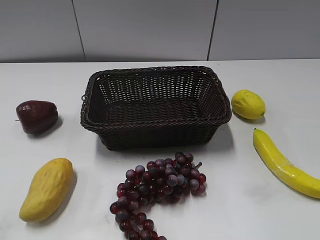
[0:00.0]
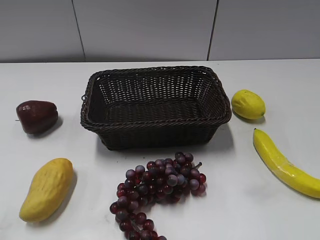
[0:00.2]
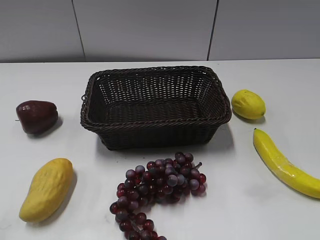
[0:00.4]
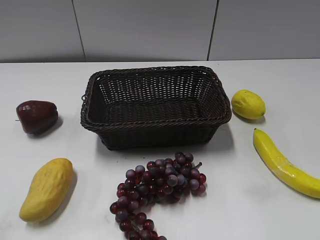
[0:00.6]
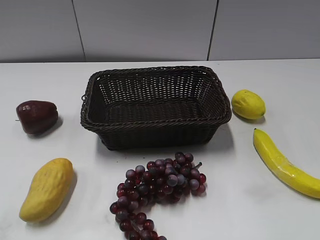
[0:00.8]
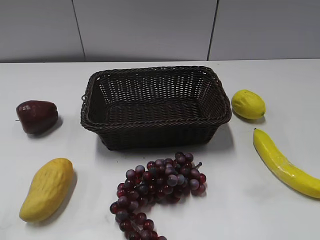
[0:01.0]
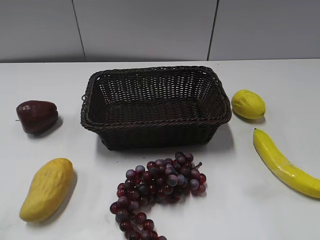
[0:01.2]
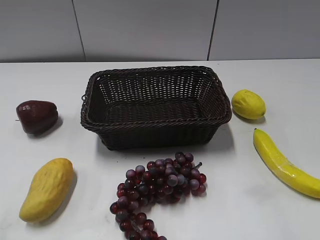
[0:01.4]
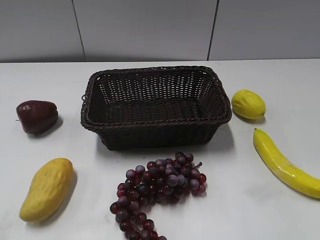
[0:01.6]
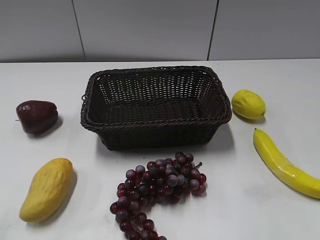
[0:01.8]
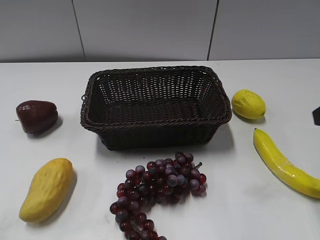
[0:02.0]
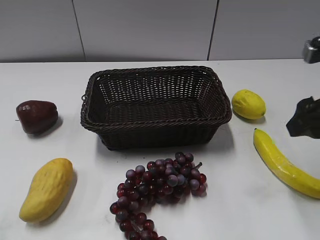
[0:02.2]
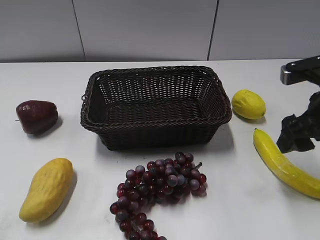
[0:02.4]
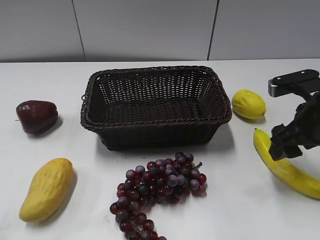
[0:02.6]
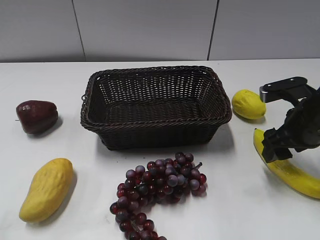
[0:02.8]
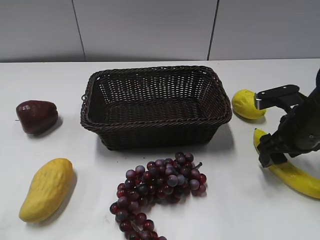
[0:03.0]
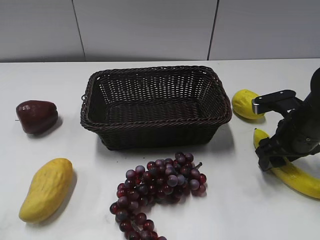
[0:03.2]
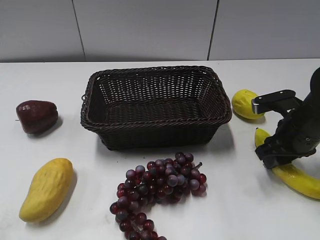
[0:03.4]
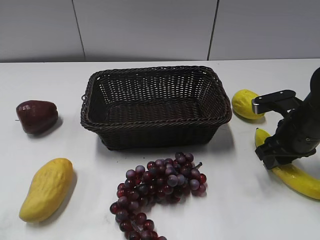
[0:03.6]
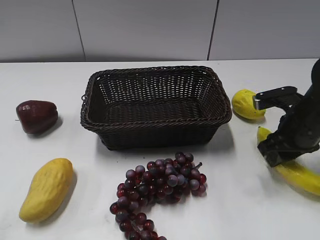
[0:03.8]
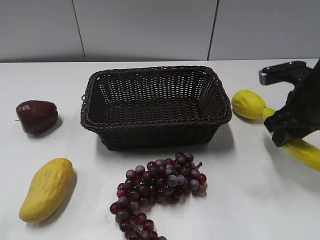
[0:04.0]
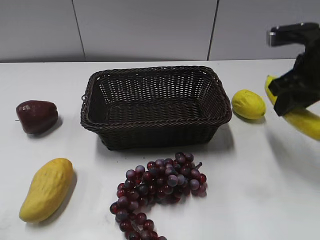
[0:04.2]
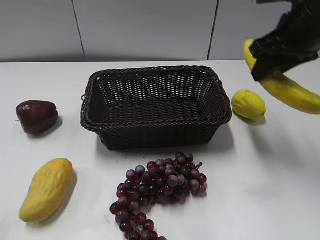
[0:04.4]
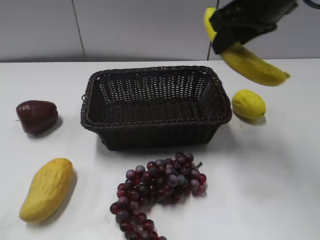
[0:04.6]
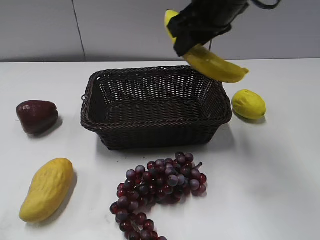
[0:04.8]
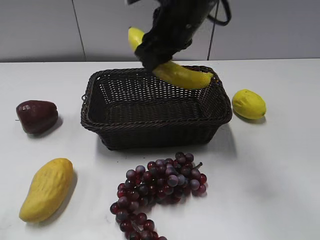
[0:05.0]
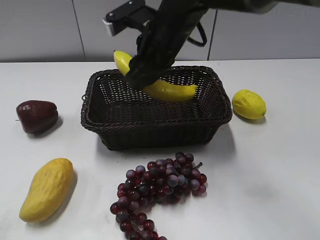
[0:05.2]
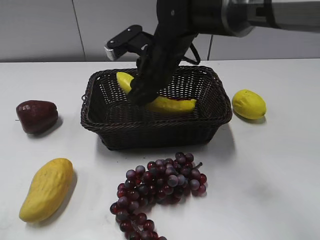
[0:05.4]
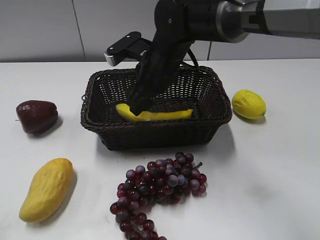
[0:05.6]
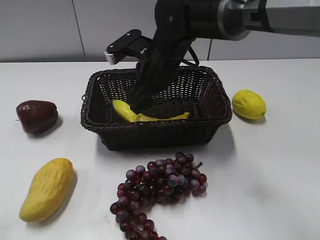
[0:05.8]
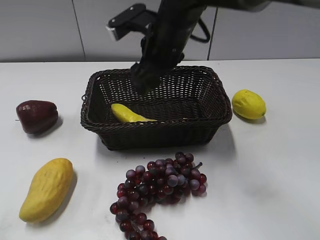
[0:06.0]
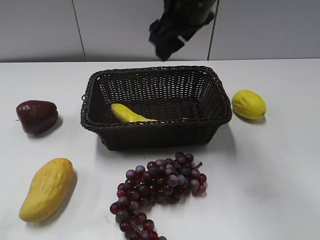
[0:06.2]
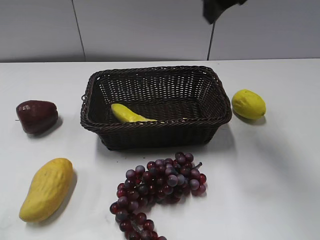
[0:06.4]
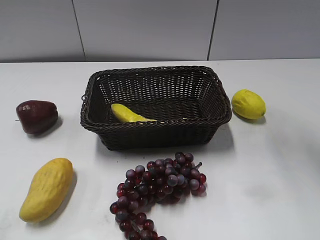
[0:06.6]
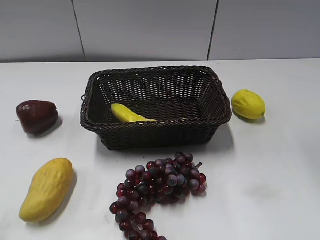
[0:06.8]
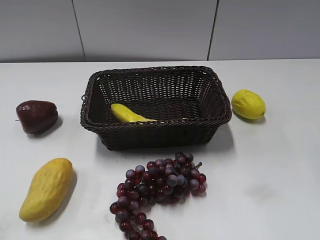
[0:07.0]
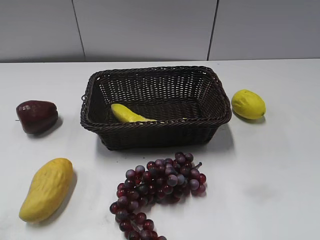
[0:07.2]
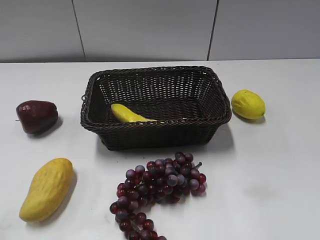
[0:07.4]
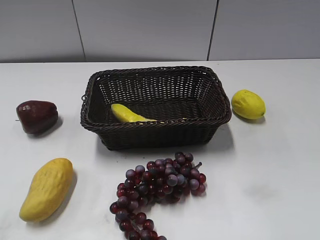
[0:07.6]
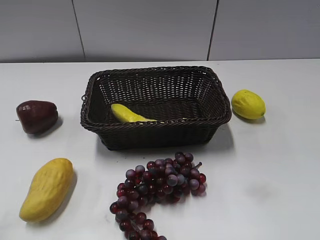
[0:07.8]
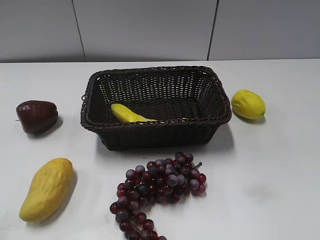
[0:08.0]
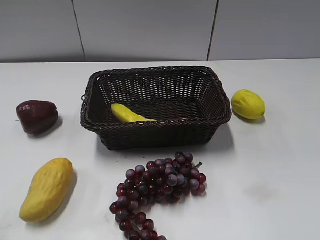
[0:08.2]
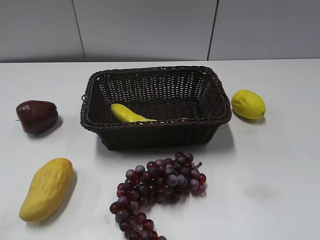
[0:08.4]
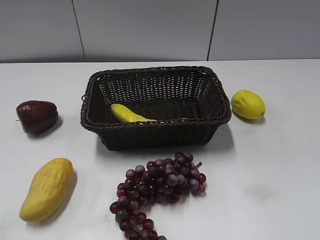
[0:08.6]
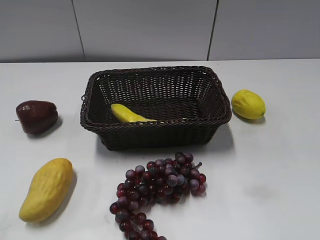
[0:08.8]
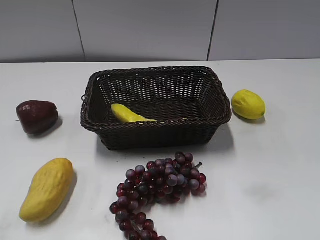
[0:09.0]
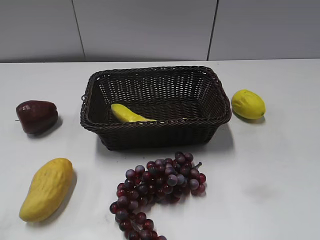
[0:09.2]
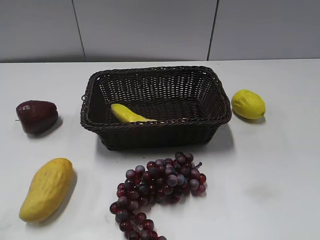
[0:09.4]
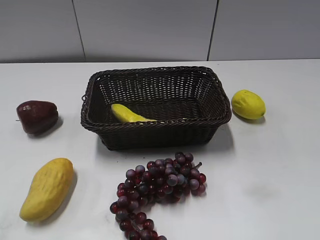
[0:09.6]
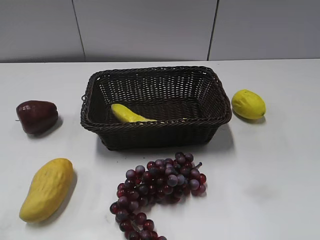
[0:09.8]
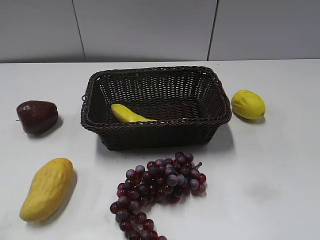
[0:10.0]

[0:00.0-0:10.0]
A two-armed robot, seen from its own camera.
Step, 0:02.0 to 0:03.4: Grasp the banana with right gripper.
Step, 0:03.6 to 0:05.6: Place the banana in the basket with right gripper.
0:01.4 to 0:02.8: The right gripper moves forward and downward, about 25 cm.
0:02.8 to 0:04.2: The right gripper is displaced upward by about 10 cm, and closes up.
0:04.2 to 0:05.8: The right gripper heads to the left, covering roughly 25 cm, and opens its fingers. The left gripper closes up.
0:05.8 to 0:07.2: The right gripper goes approximately 40 cm to the right, backward and upward.
